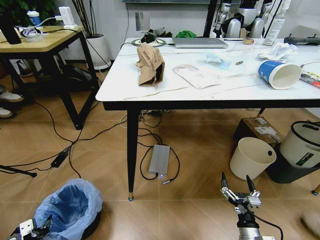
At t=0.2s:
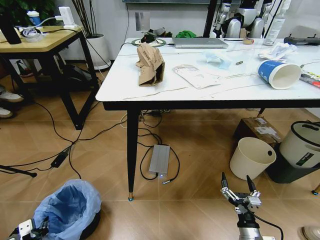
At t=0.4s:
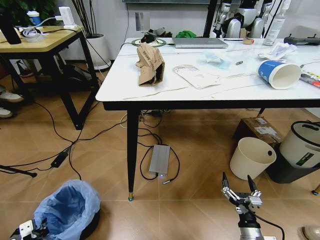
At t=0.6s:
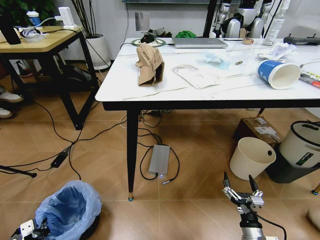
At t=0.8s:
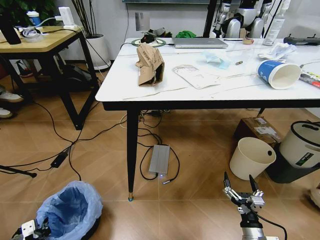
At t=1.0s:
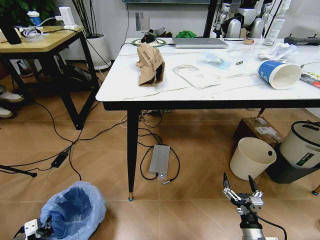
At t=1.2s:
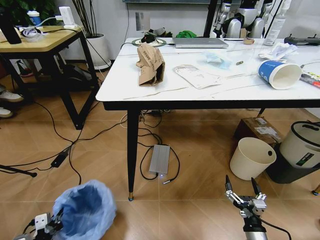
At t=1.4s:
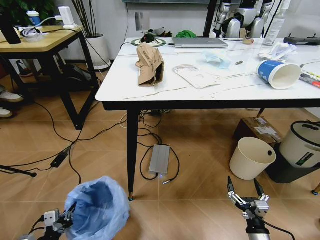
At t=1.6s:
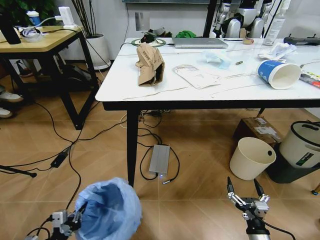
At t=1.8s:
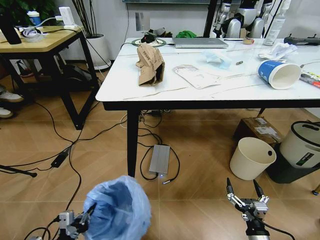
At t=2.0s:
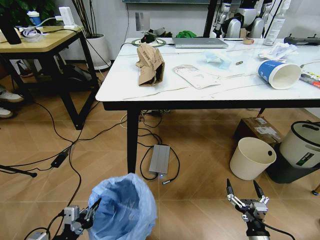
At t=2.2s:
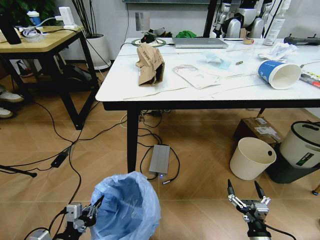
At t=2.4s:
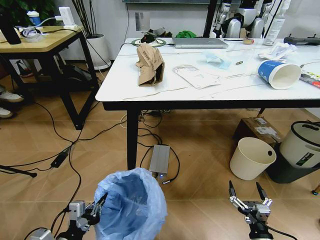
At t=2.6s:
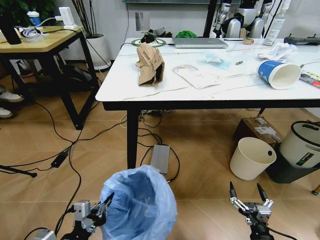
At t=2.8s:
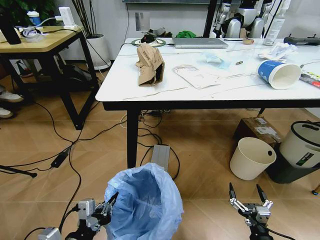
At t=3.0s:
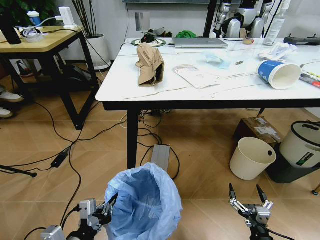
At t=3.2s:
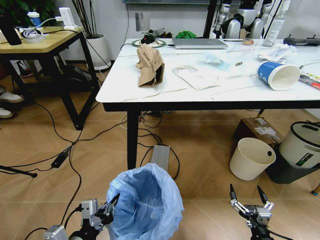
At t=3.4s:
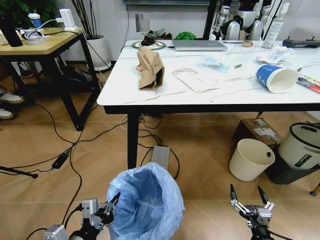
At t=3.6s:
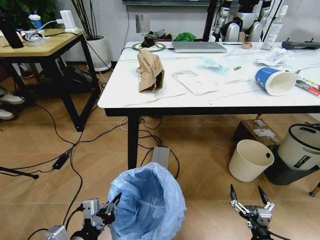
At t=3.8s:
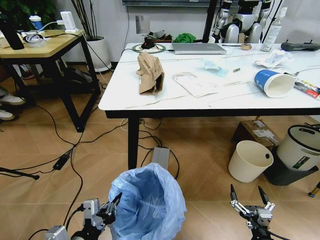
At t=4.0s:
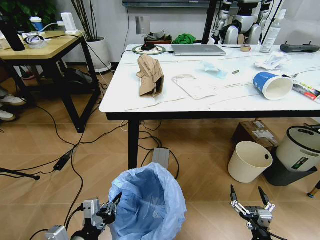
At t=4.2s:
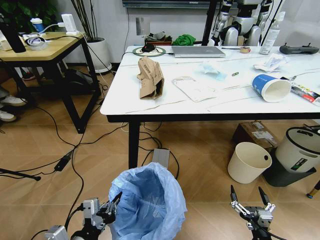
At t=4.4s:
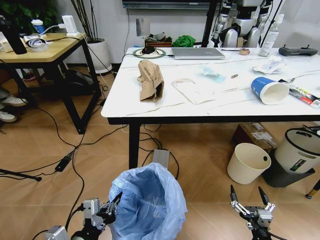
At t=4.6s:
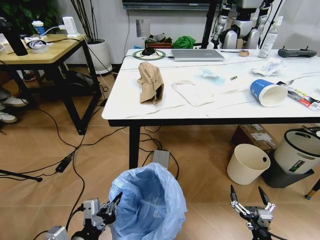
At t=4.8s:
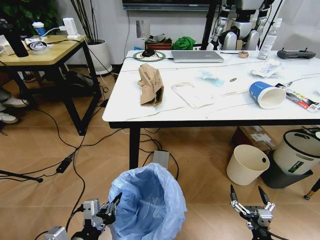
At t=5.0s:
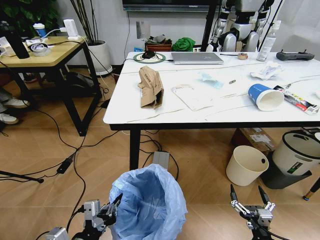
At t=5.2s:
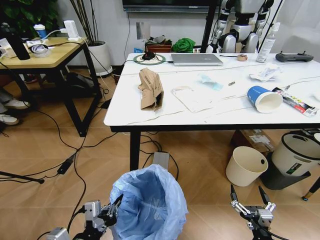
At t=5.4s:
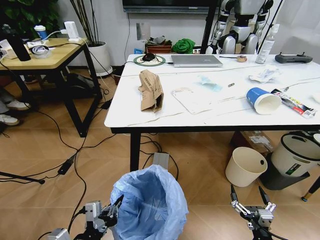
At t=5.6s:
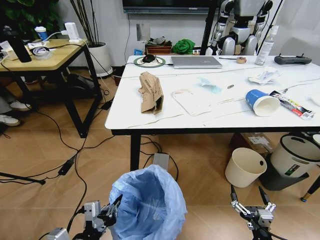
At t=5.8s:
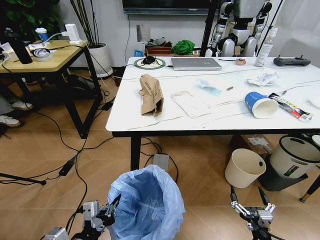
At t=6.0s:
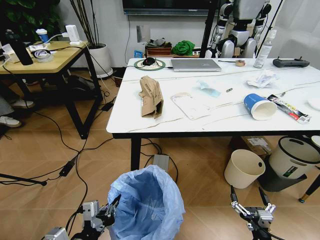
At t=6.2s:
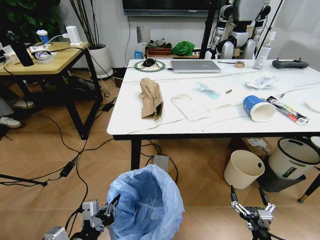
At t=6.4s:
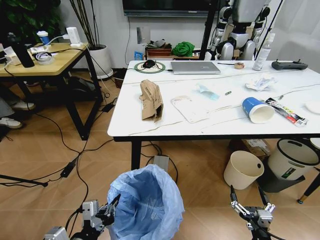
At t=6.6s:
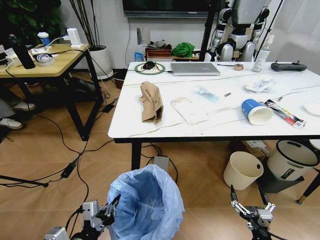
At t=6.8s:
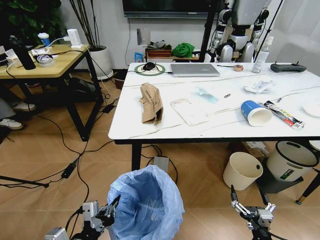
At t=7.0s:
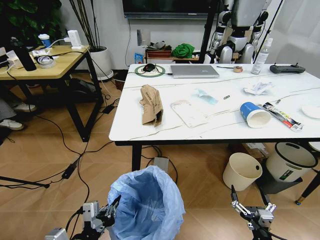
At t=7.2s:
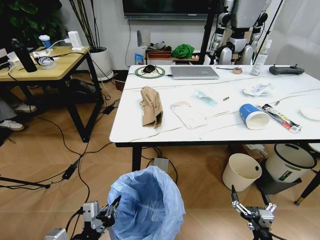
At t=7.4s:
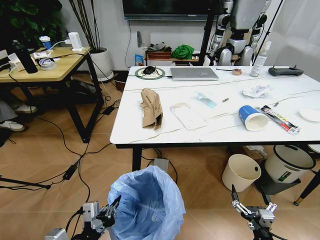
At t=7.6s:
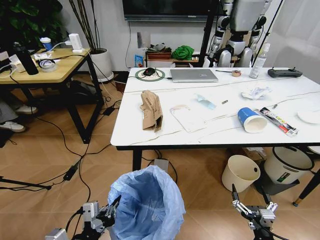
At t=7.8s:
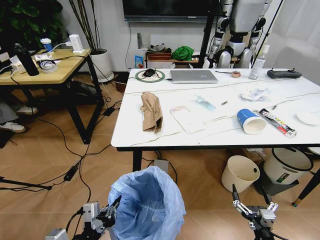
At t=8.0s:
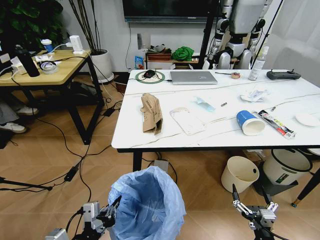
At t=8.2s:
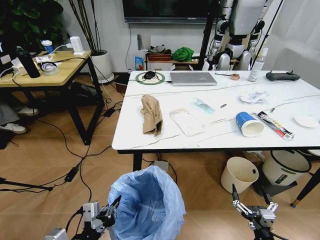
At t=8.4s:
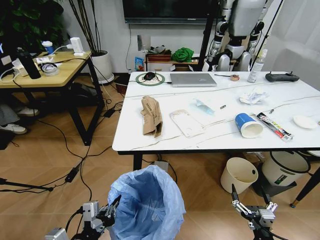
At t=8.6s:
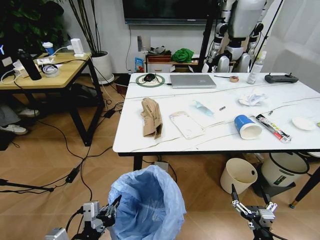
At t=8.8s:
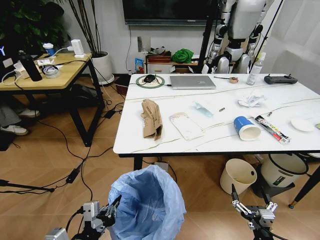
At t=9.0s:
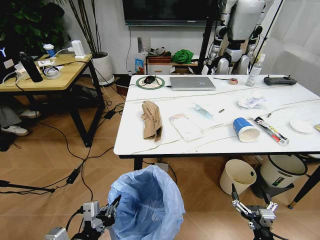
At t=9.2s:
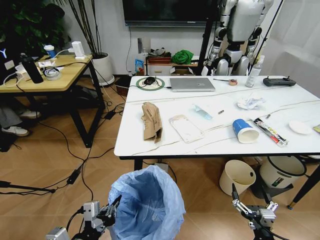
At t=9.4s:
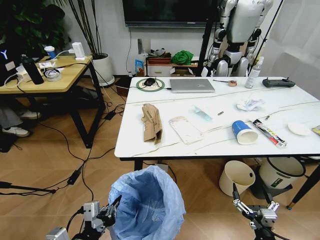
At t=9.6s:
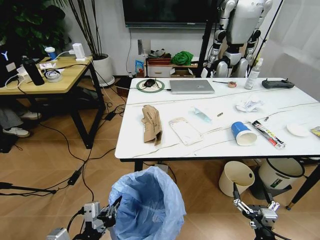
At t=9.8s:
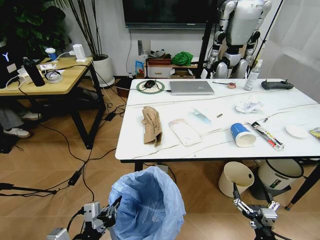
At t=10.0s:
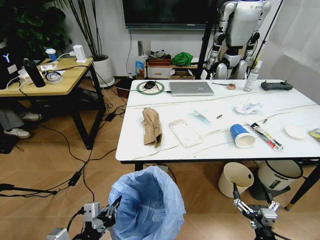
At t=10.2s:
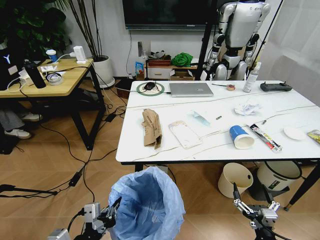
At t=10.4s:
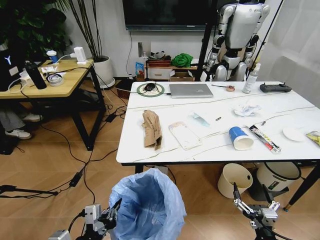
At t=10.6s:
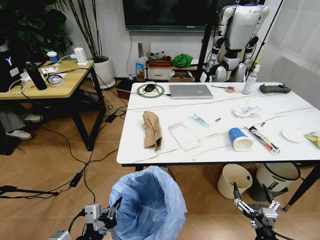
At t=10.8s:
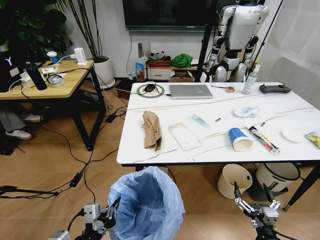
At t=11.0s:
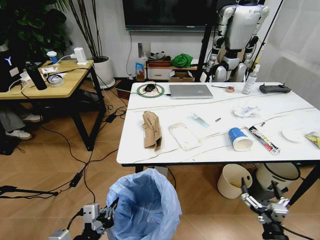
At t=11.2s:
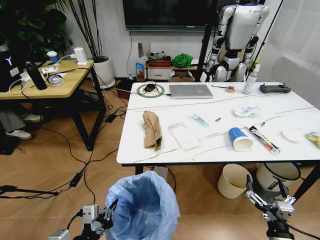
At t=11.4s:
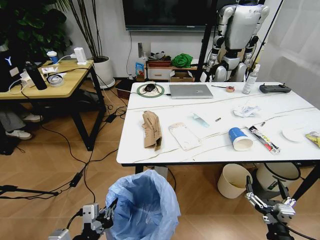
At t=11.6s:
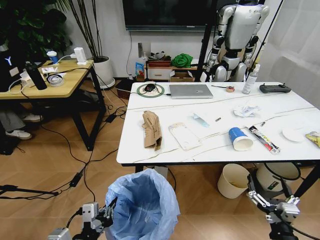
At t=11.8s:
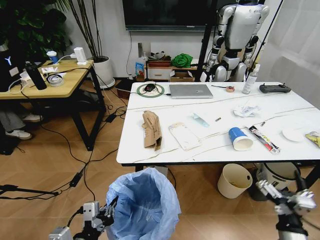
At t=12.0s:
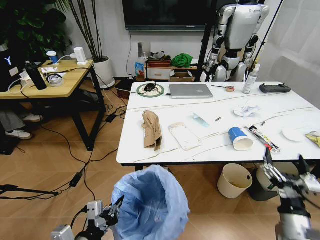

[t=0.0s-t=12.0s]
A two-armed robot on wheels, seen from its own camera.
Task of the whole recording: Pick up the trash bin and place the trash from the table into it.
t=0.0s to t=1.6s: The left gripper is displaced to the right by roughly 5 cm, and closes up.
t=1.6s to t=3.0s: The left gripper travels to the right and upward by some 15 cm.
t=10.4s to t=12.0s: The right gripper moves upward and forward, about 10 cm.

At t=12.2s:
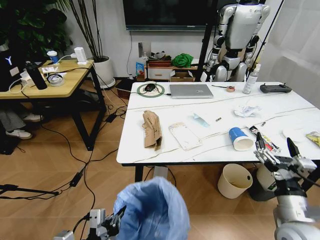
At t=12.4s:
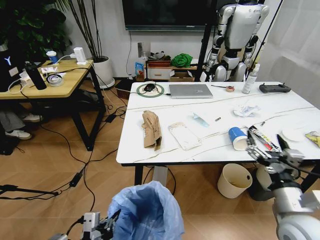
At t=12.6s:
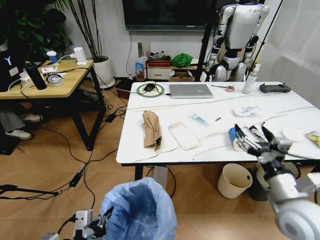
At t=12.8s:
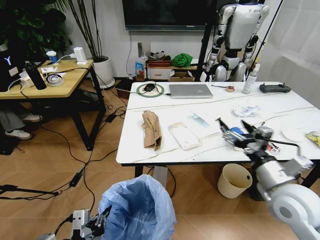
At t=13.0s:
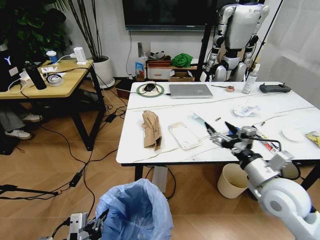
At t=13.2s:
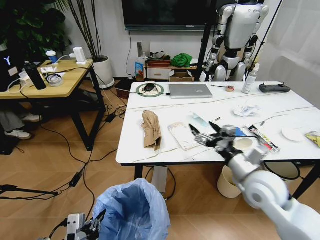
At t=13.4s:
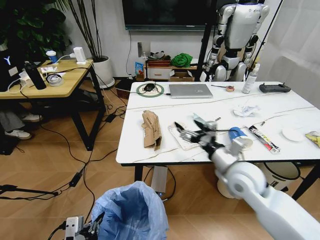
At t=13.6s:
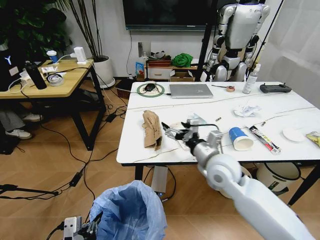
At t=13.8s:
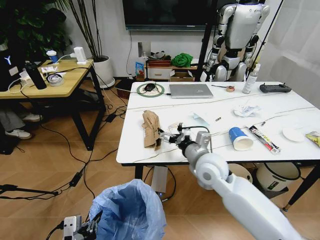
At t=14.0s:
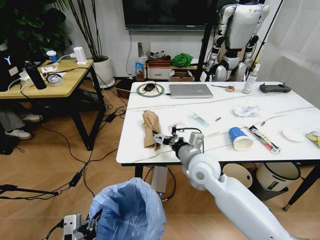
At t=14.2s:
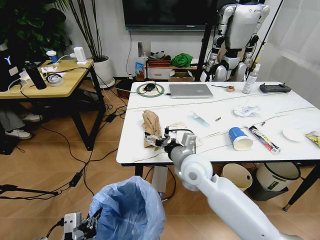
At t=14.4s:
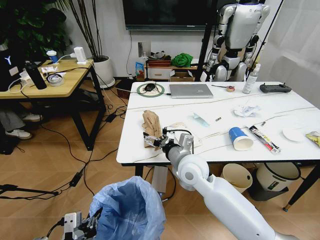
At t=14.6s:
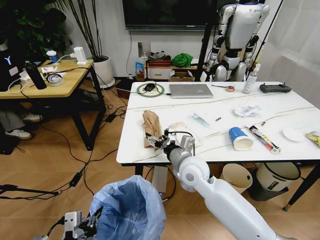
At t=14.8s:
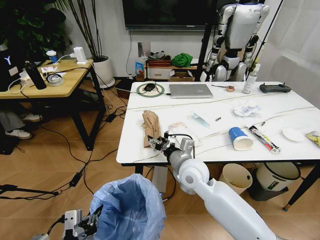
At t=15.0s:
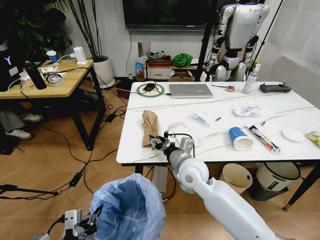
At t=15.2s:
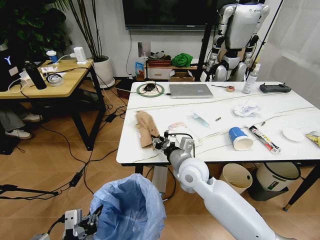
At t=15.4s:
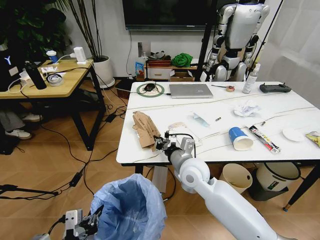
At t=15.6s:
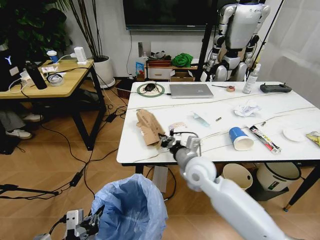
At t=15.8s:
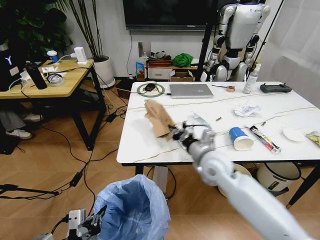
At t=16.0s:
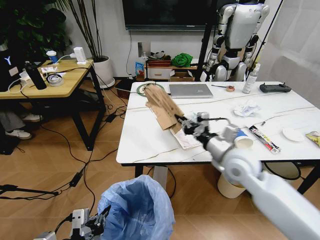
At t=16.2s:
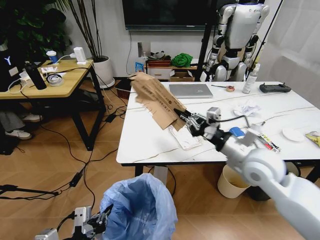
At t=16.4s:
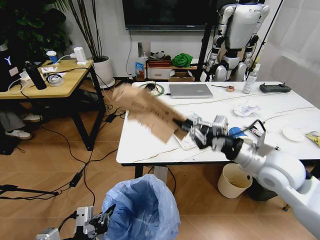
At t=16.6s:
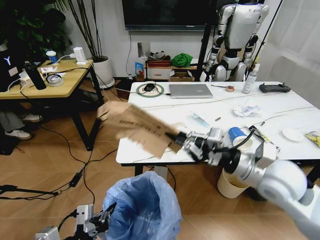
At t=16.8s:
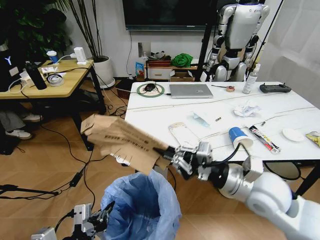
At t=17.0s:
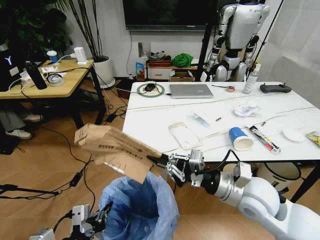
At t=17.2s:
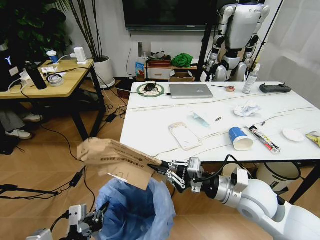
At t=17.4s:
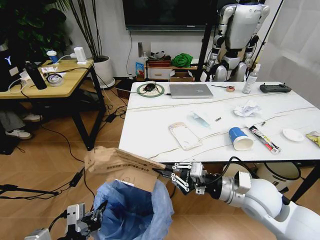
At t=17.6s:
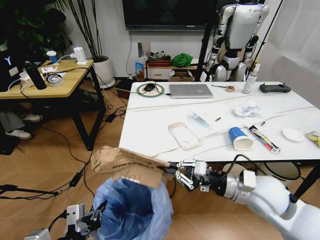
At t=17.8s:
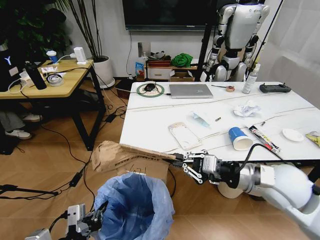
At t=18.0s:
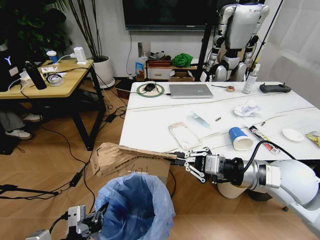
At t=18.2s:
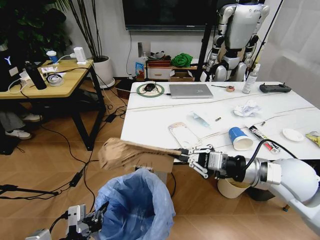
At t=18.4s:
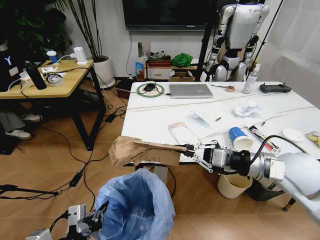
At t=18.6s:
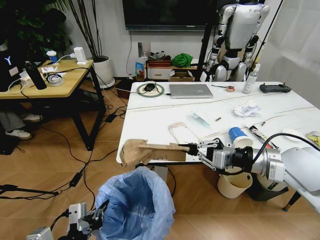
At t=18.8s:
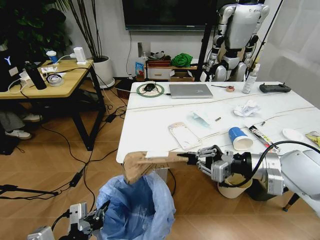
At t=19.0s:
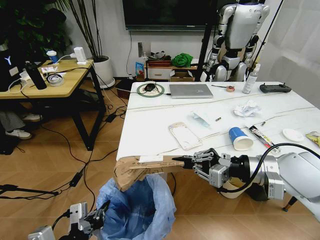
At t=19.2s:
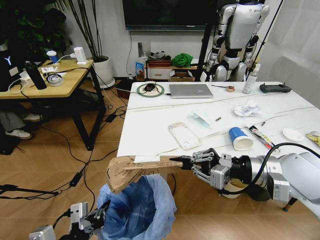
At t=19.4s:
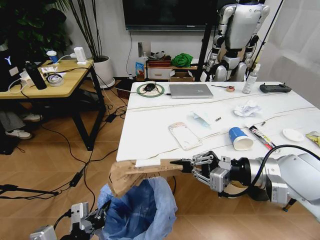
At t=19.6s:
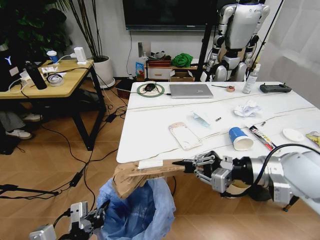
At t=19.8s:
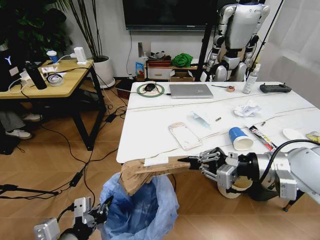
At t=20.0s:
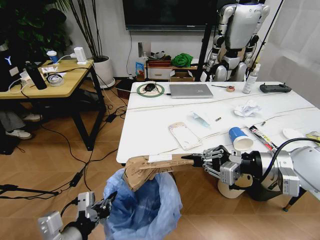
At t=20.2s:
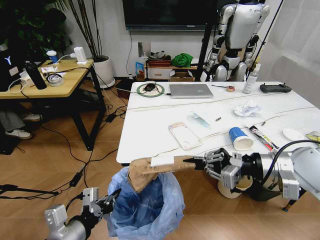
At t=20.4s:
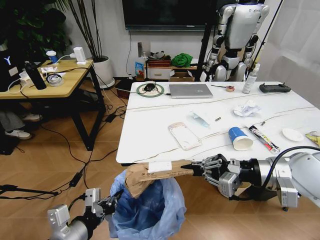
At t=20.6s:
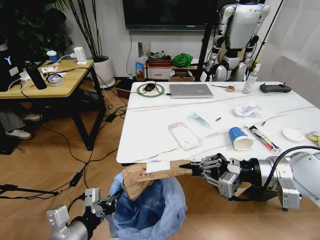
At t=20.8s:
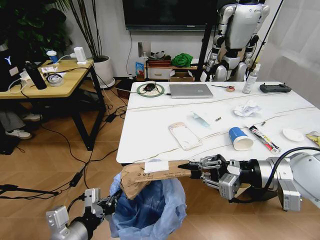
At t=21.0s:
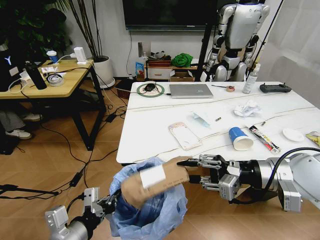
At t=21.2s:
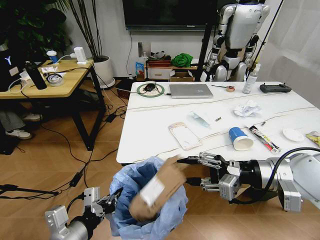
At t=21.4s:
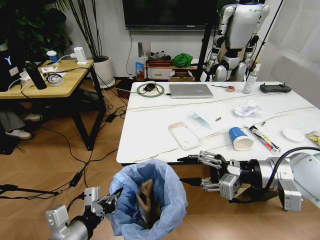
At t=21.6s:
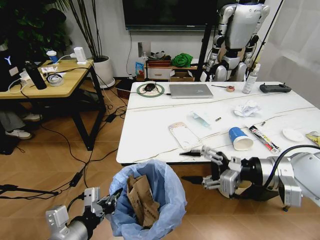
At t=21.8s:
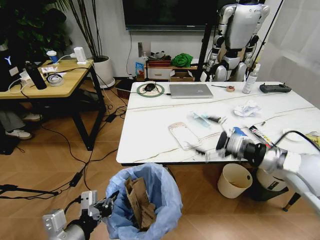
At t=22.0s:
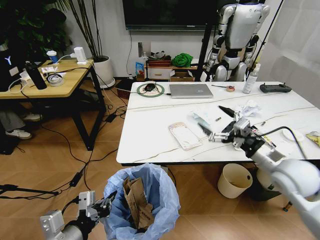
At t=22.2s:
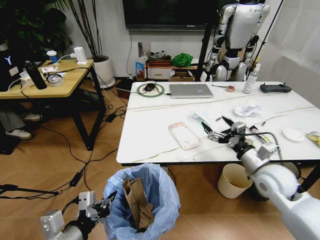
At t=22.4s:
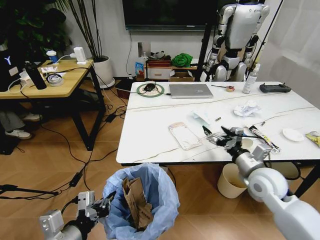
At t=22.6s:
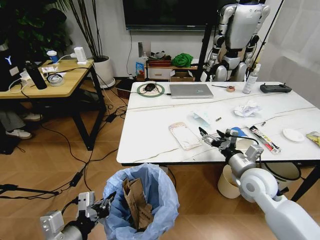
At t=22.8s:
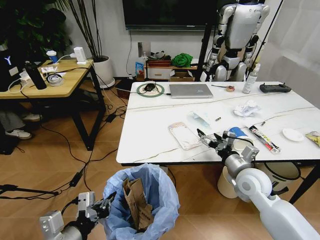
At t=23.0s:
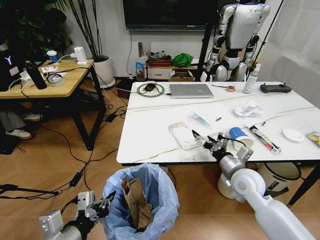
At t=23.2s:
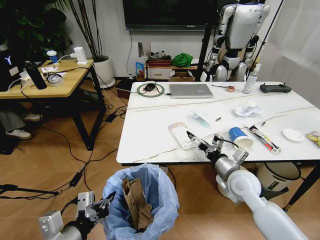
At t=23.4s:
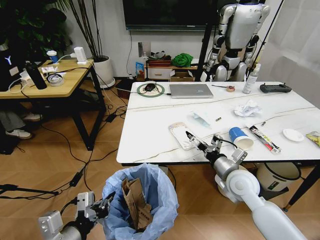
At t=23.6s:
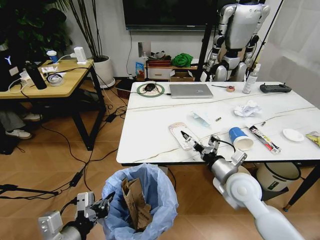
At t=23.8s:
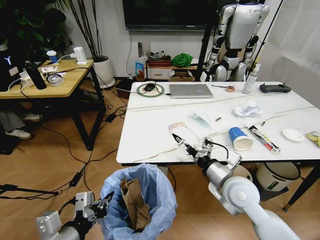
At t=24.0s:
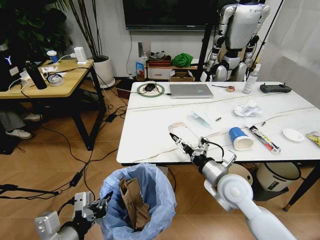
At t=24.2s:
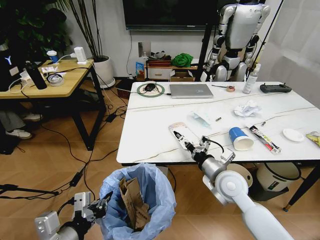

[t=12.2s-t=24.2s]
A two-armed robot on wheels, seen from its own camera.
Task of the whole recording: Pick up the trash bin and place the trash from the table into it.
t=12.2s to t=13.8s: The right gripper heads to the left and forward, covering about 25 cm.
t=13.8s to t=15.2s: The right gripper is displaced to the left by some 5 cm, and closes its fingers.
t=15.2s to t=16.6s: The right gripper is displaced to the right, upward and backward by some 20 cm.
t=16.6s to t=18.2s: The right gripper reaches approximately 5 cm downward, then returns.
t=18.2s to t=19.8s: The right gripper moves some 5 cm.
t=19.8s to t=21.2s: The right gripper opens.
t=21.2s to t=22.6s: The right gripper shifts approximately 15 cm downward, and opens.
t=22.6s to t=24.2s: The right gripper moves to the left, some 10 cm.
